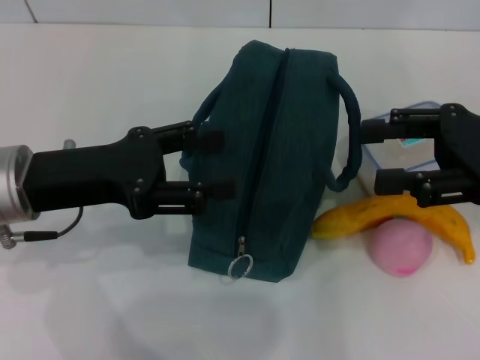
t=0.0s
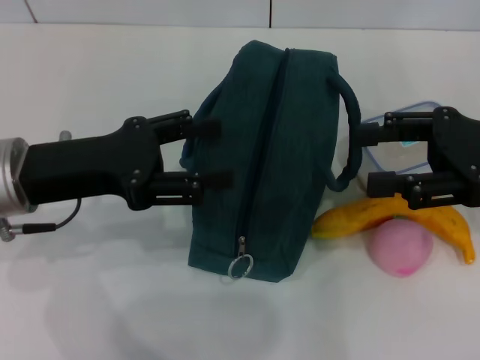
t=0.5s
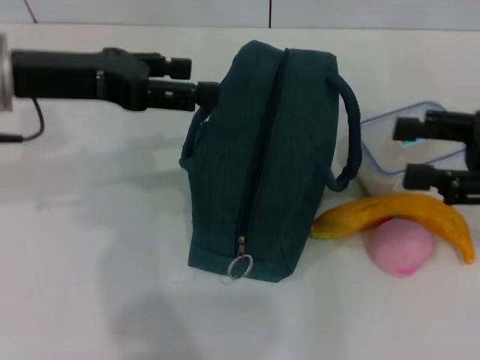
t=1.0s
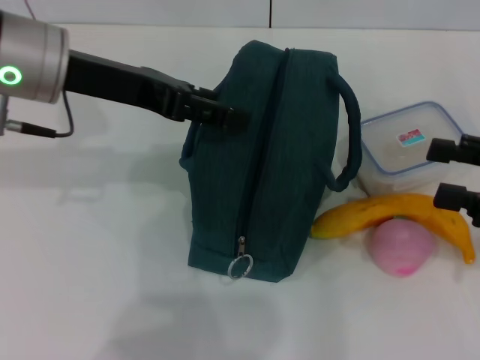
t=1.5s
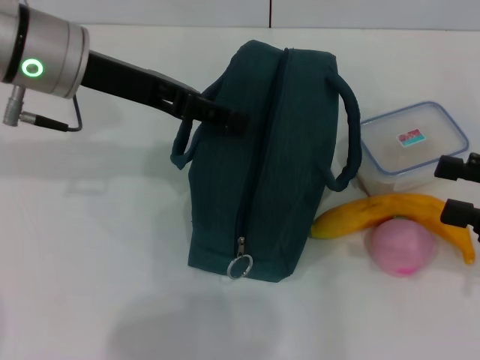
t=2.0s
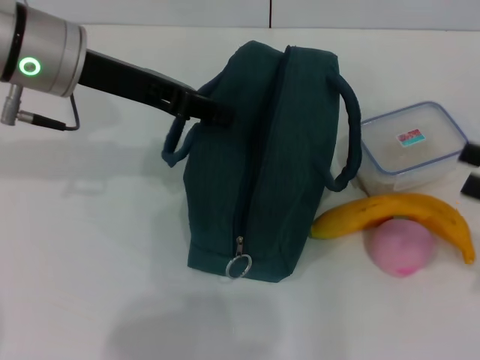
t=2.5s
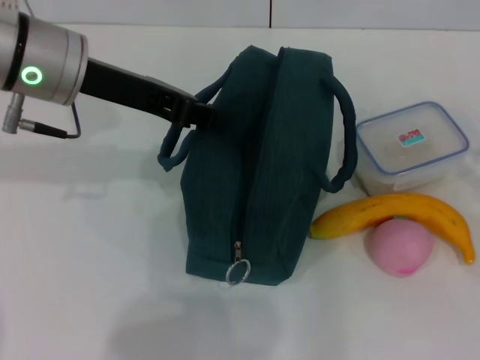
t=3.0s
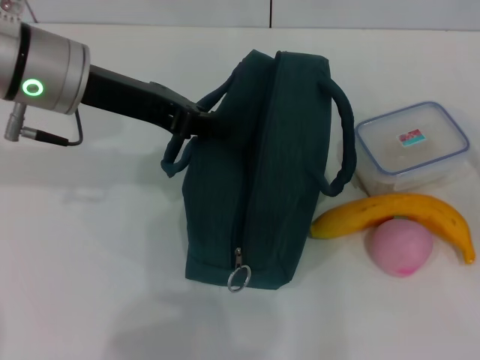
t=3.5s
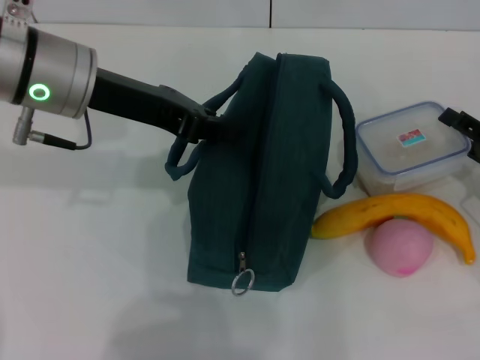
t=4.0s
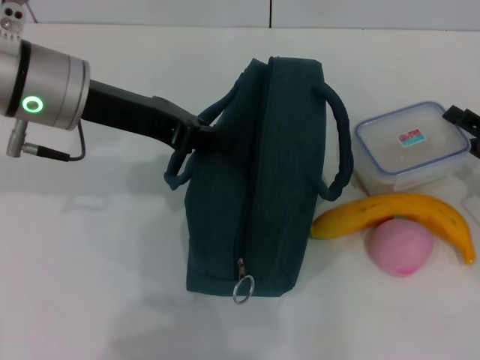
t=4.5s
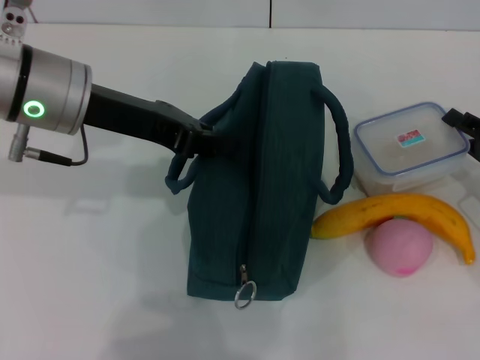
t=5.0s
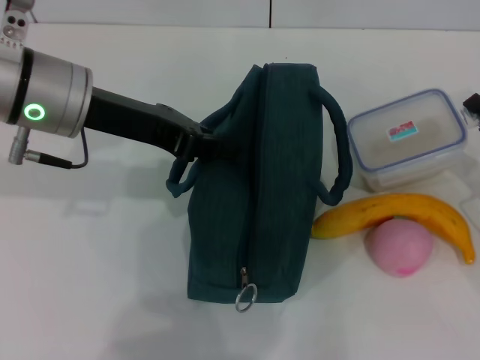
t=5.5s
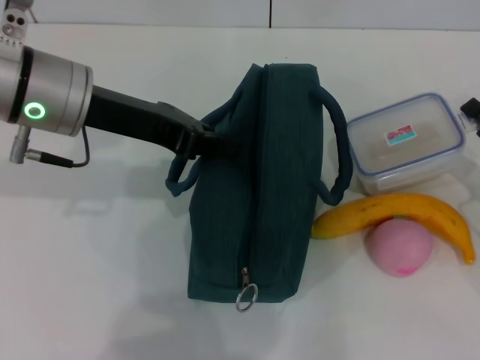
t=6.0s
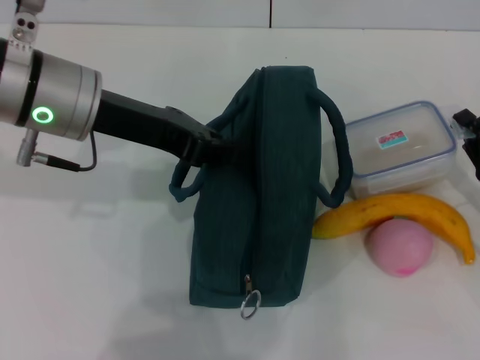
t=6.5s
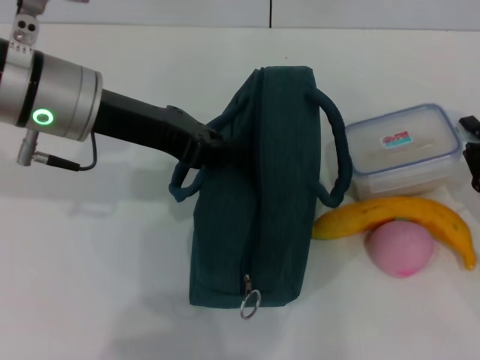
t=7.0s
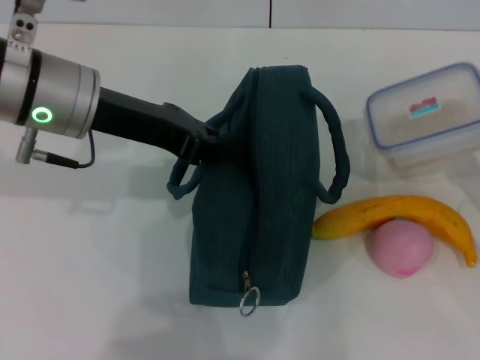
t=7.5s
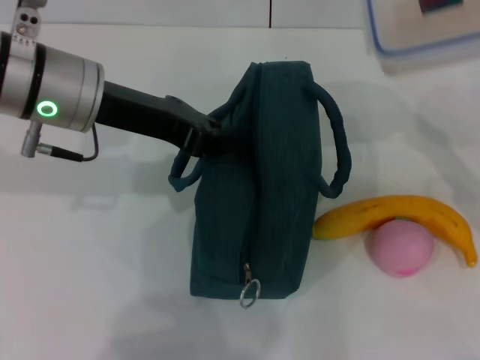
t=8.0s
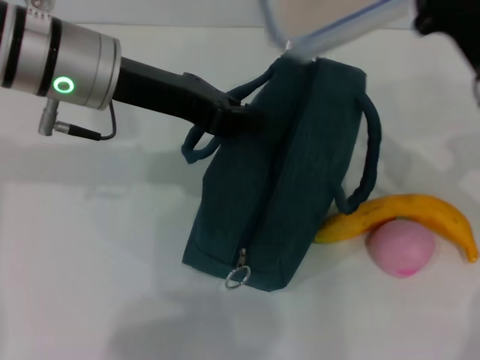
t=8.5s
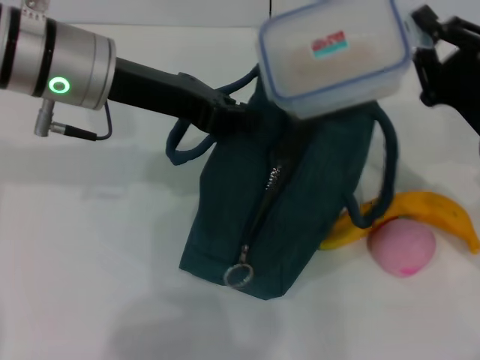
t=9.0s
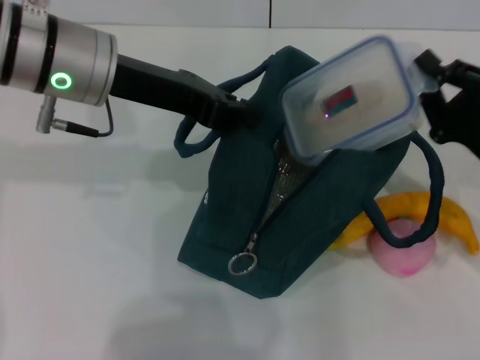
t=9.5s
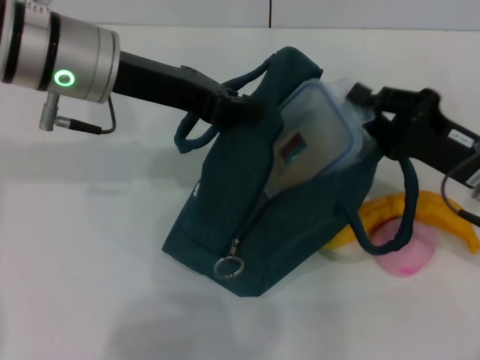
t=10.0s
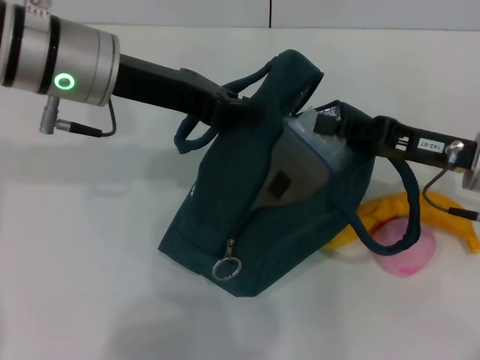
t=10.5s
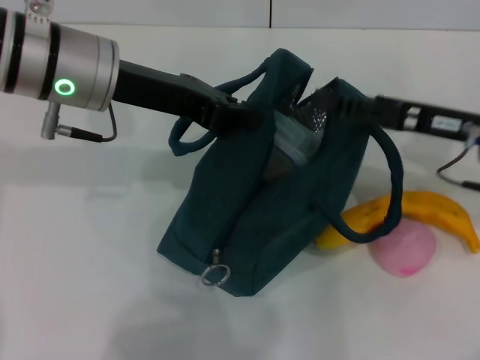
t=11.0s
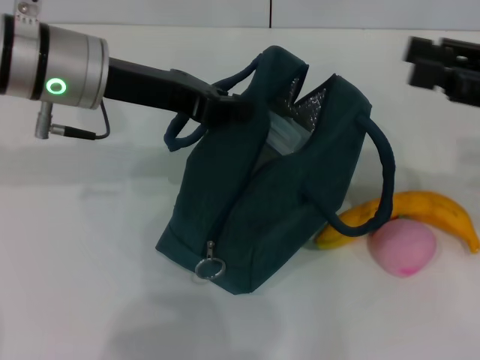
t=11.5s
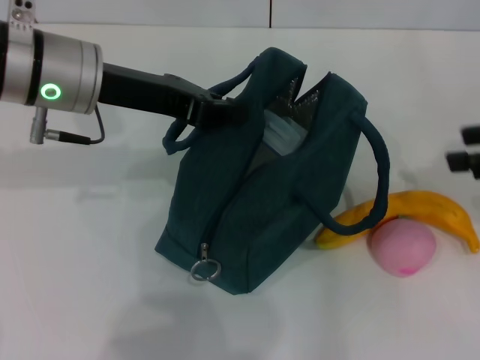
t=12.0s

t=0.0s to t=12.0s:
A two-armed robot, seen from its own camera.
Step, t=0.0s to t=2.5s: Hold the lunch bag with your left hand.
Step, t=3.0s to t=5.5s: Pick up the lunch box with your right hand.
Step, t=6.0s to t=11.0s: Place the lunch box into the lunch bag with your right hand.
t=0.0s to t=2.0s: The left gripper travels forward and upward by about 10 cm; the right gripper shifts roughly 10 cm backward and to the right.
t=2.0s to t=4.0s: The right gripper moves downward and forward, roughly 10 cm. The left gripper closes.
t=4.0s to t=6.0s: The right gripper closes up.
t=6.0s to t=8.0s: The right gripper is displaced upward by approximately 5 cm.
t=8.0s to t=10.0s: The right gripper changes place by about 5 cm.
t=10.0s to t=12.0s: The right gripper goes roughly 15 cm upward and to the right, and opens.

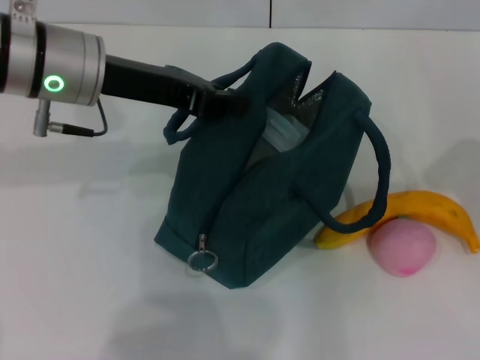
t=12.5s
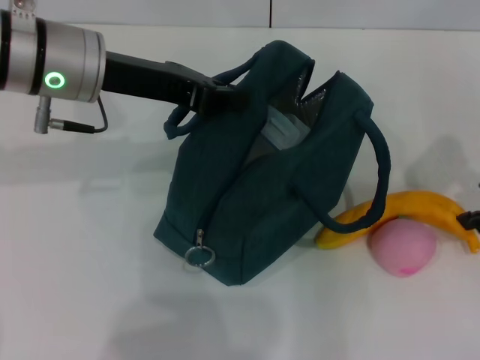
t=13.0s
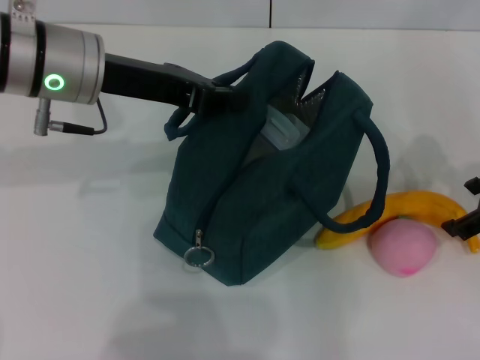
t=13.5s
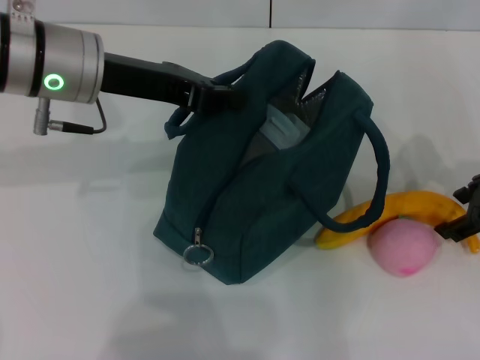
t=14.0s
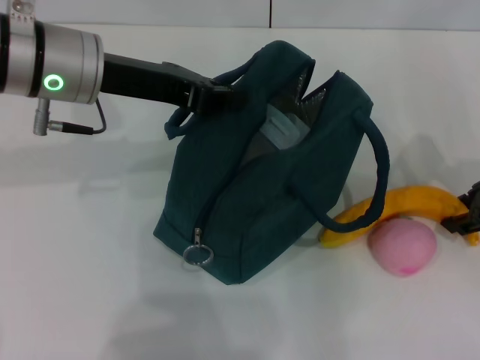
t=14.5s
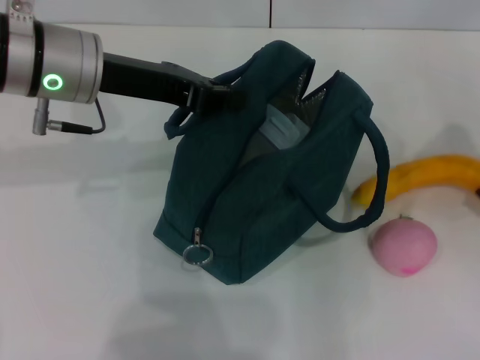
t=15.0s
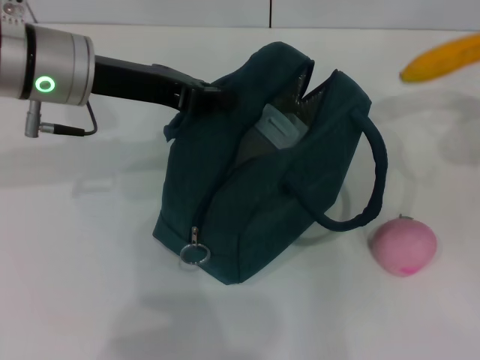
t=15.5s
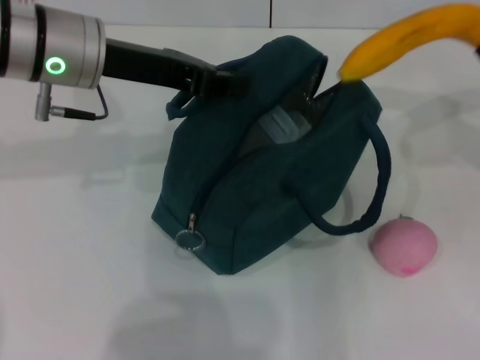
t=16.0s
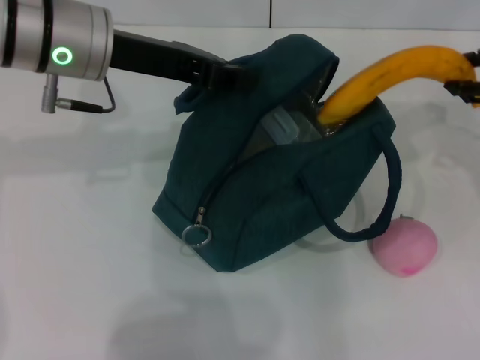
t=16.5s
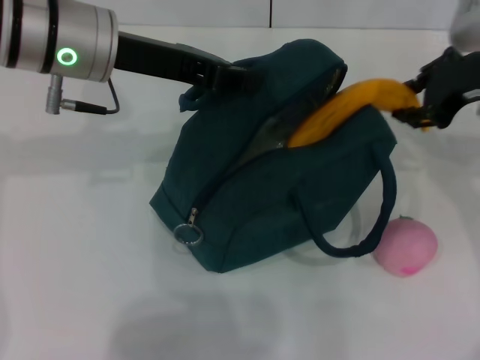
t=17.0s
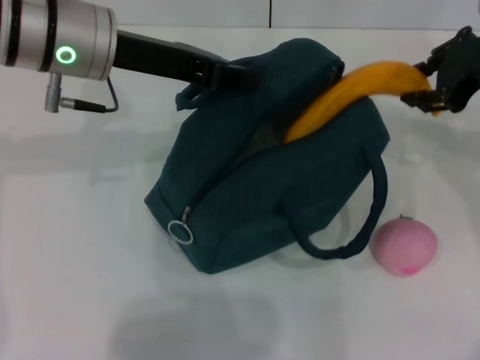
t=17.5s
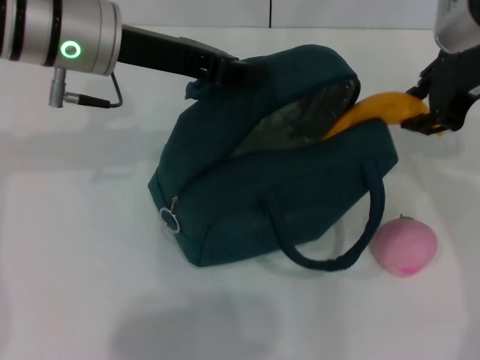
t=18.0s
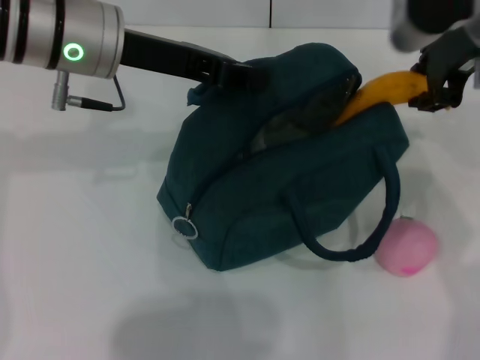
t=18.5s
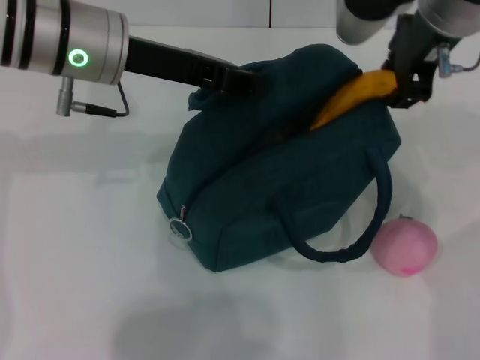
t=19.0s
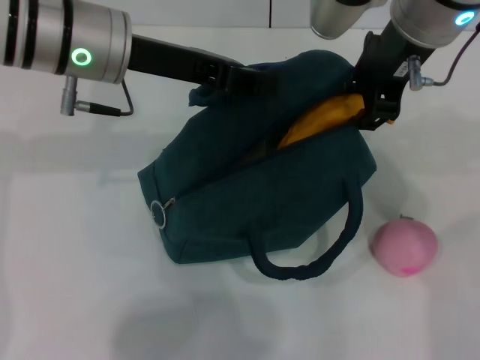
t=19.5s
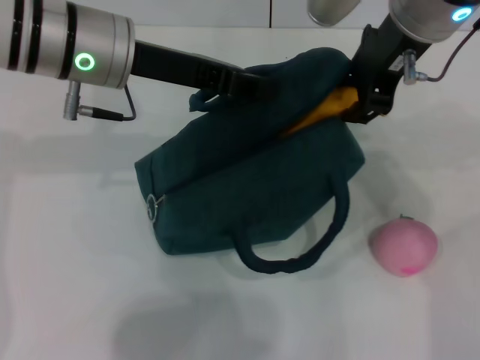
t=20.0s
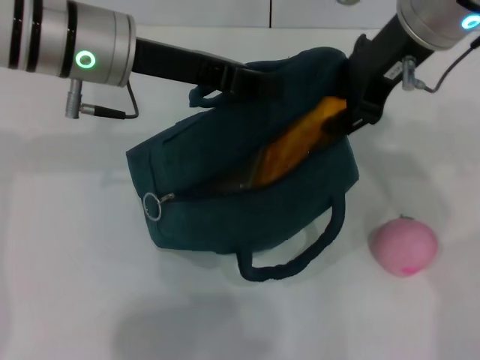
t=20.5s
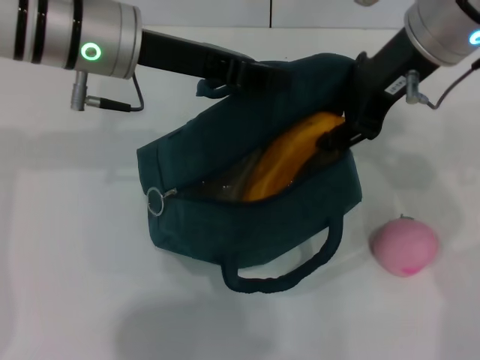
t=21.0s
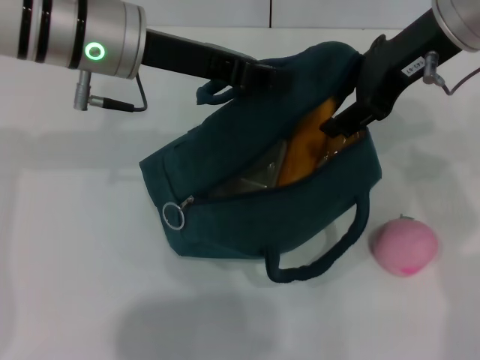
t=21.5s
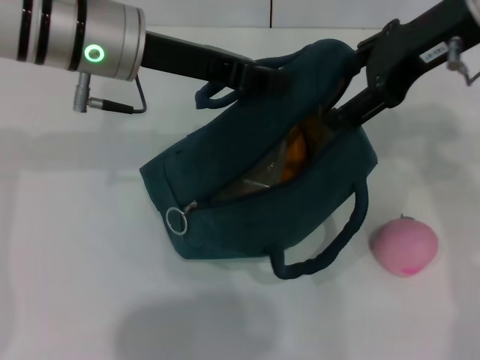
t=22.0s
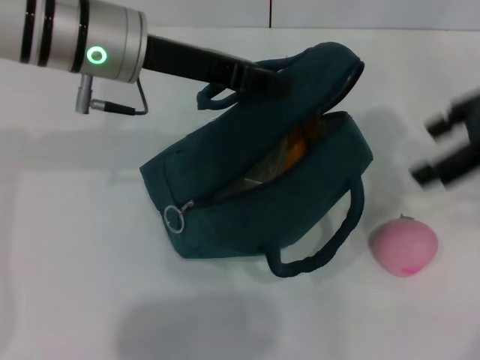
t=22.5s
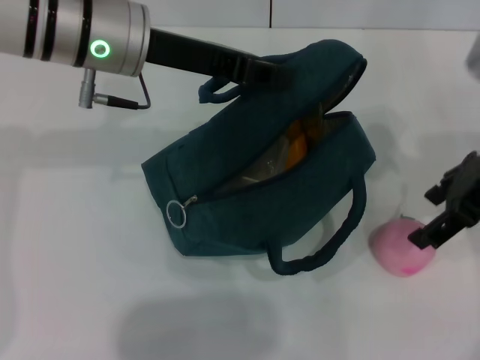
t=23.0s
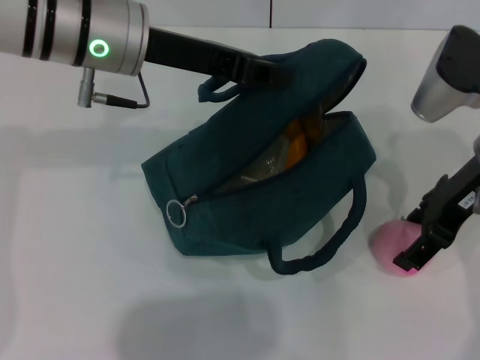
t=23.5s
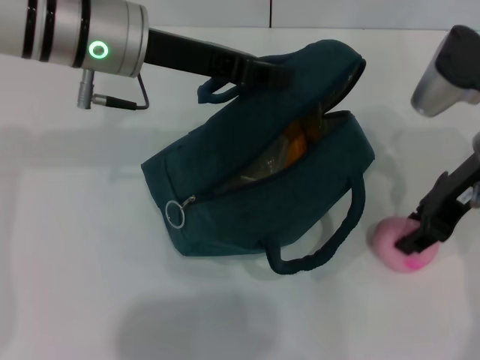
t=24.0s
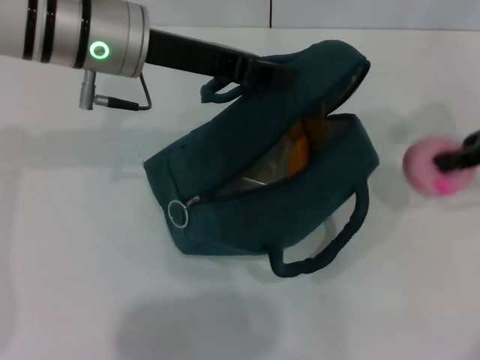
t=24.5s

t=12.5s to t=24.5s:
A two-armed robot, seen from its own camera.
Step, t=12.5s to t=14.0s: Take the banana with your right hand.
Step, t=14.5s to t=22.0s: Put the banana into the lunch bag with your right hand.
Step, t=22.5s to t=23.5s: Grab the peach with your right hand.
t=12.5s to t=14.5s: The right gripper goes about 5 cm downward.
t=14.5s to t=16.5s: The right gripper heads upward, covering some 10 cm.
t=16.5s to t=18.5s: The right gripper travels to the left by approximately 10 cm.
t=18.5s to t=20.5s: The right gripper changes place by roughly 5 cm.
t=20.5s to t=22.5s: The right gripper heads to the right, covering some 15 cm, and opens.
t=22.5s to t=24.5s: The right gripper shifts some 5 cm downward, and closes.

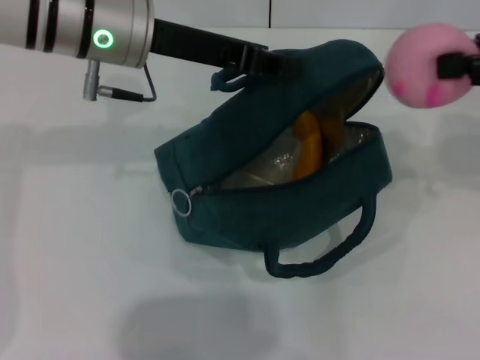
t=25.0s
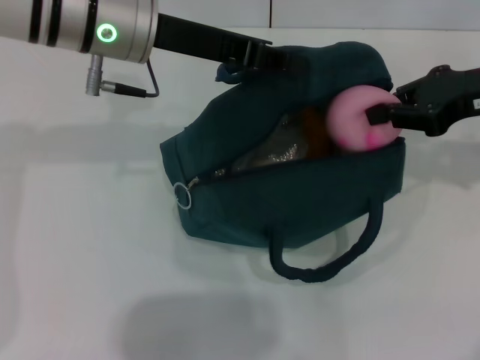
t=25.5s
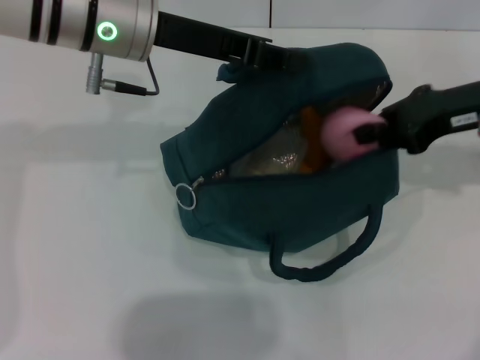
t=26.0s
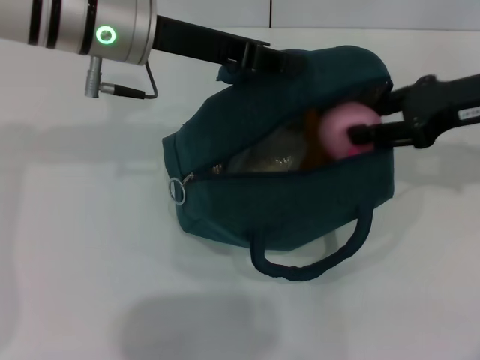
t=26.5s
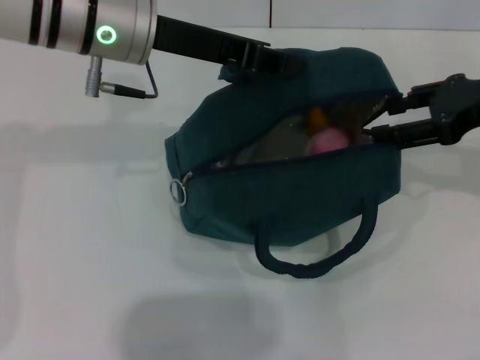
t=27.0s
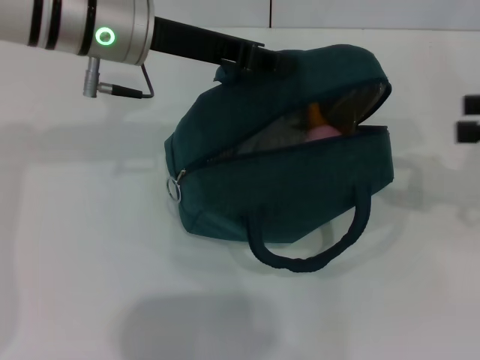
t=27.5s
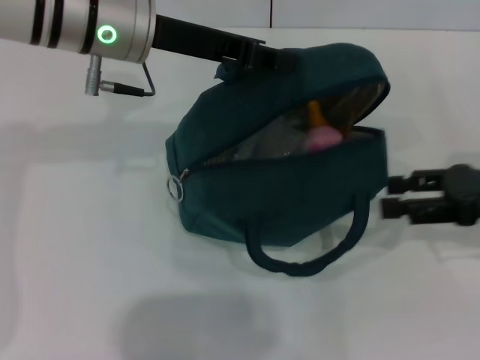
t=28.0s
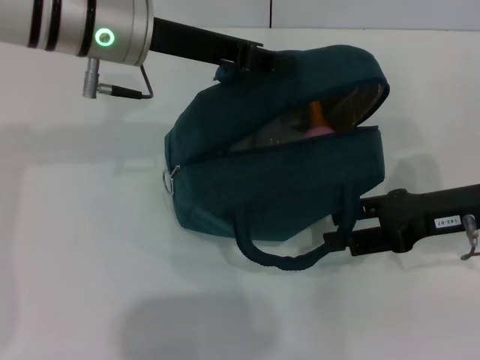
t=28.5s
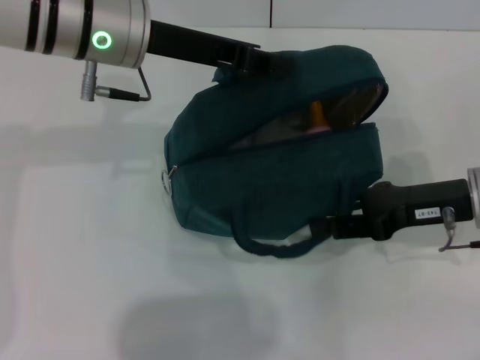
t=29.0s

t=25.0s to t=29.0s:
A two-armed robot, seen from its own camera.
t=25.0s to t=27.0s: The right gripper ends up some 5 cm from where it was, and opens up.
t=27.0s to t=29.0s: The right gripper moves downward, approximately 10 cm, and goes to the right and returns, approximately 10 cm each way.
